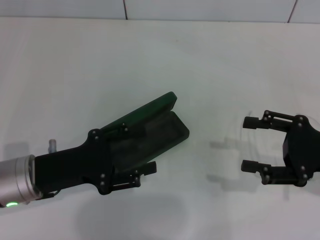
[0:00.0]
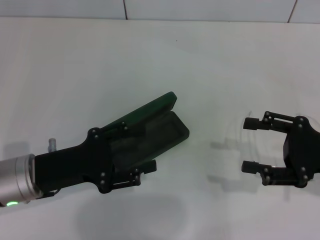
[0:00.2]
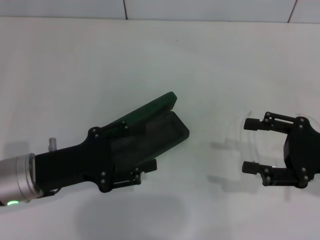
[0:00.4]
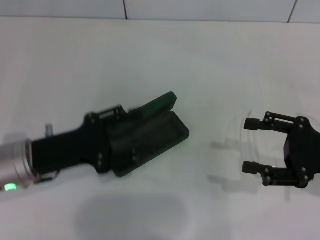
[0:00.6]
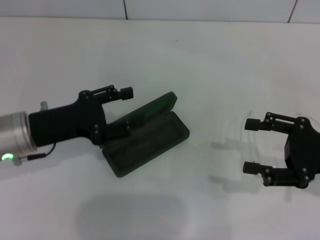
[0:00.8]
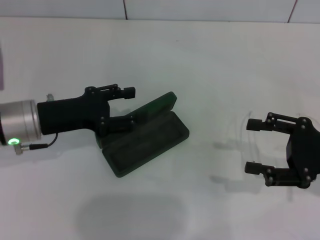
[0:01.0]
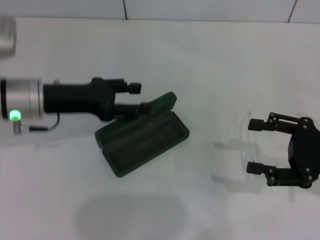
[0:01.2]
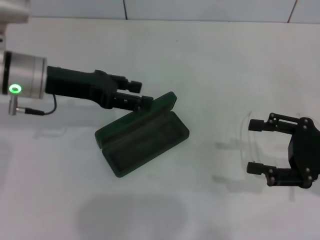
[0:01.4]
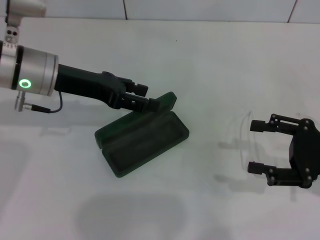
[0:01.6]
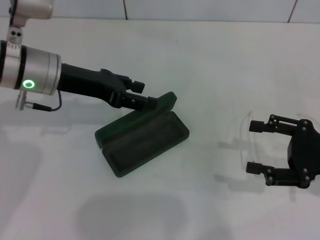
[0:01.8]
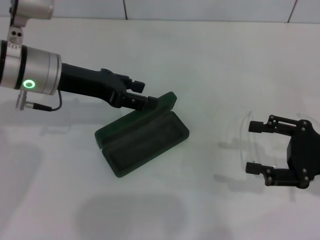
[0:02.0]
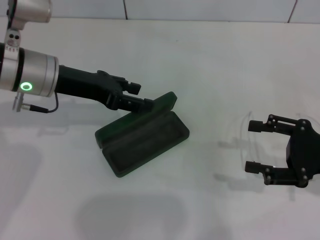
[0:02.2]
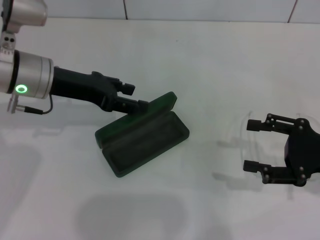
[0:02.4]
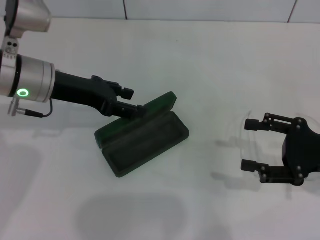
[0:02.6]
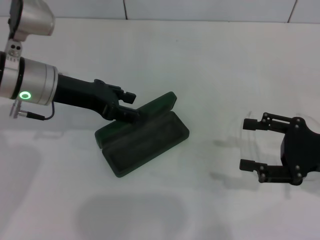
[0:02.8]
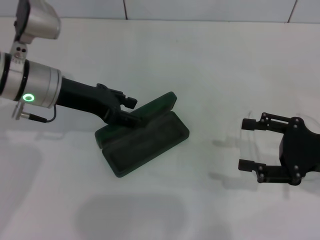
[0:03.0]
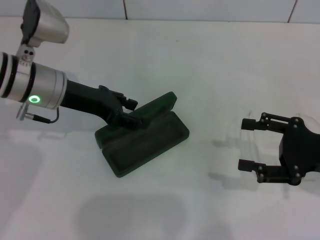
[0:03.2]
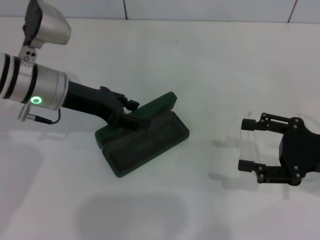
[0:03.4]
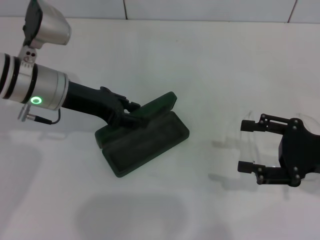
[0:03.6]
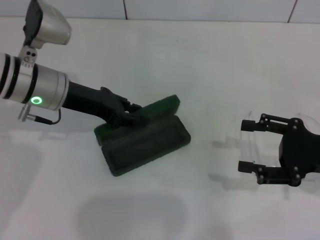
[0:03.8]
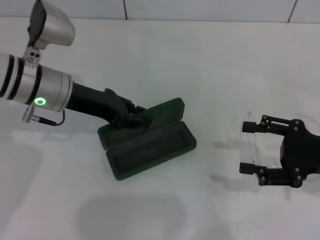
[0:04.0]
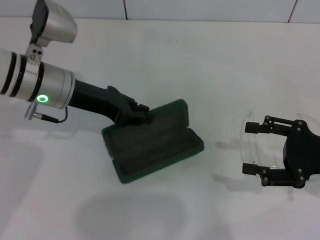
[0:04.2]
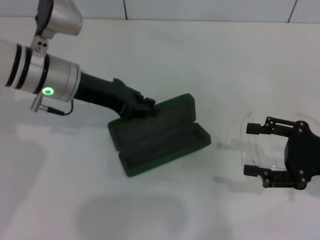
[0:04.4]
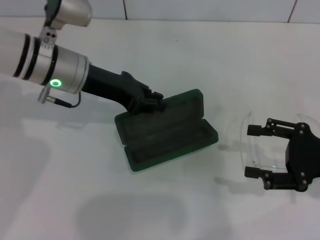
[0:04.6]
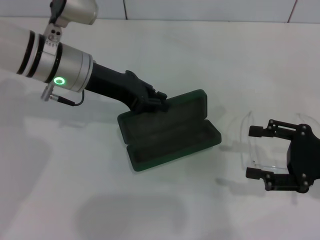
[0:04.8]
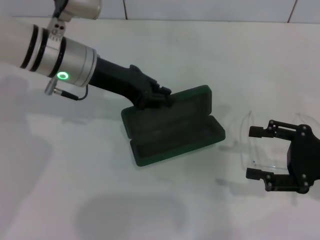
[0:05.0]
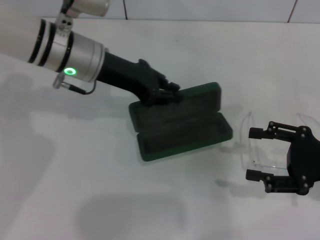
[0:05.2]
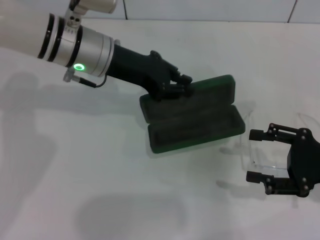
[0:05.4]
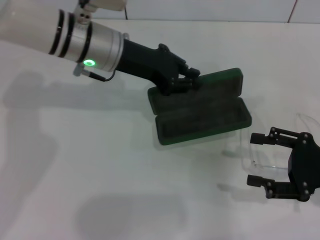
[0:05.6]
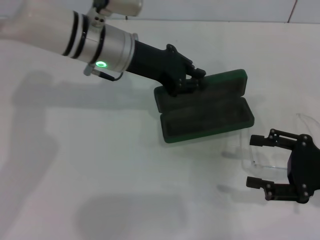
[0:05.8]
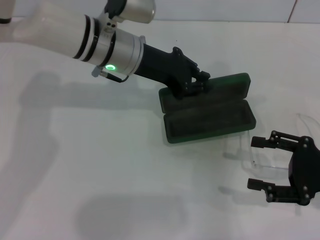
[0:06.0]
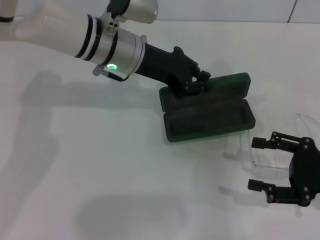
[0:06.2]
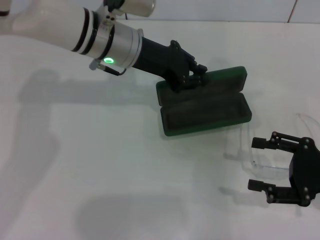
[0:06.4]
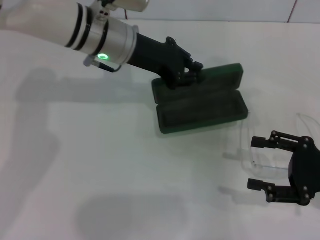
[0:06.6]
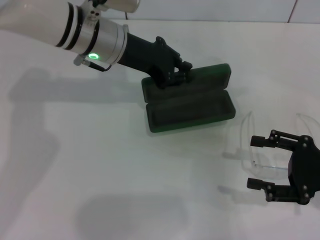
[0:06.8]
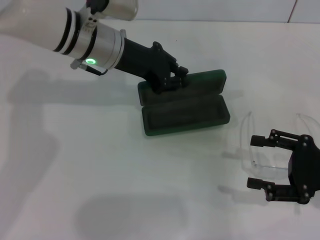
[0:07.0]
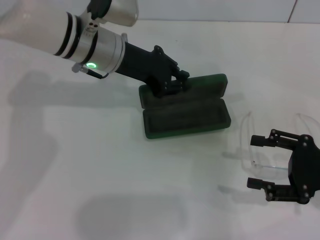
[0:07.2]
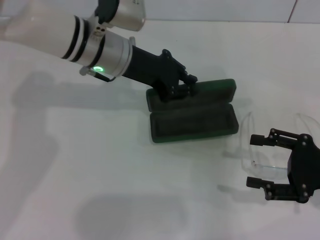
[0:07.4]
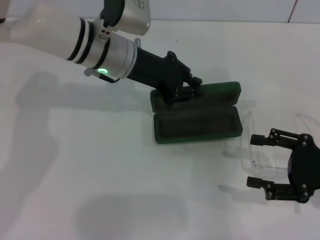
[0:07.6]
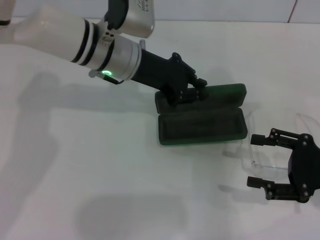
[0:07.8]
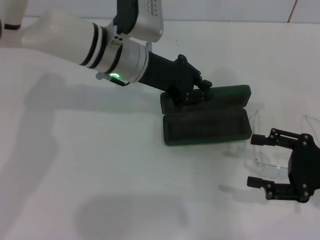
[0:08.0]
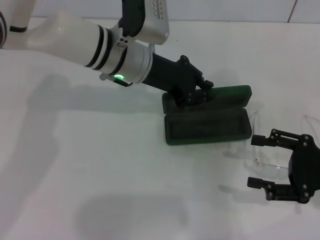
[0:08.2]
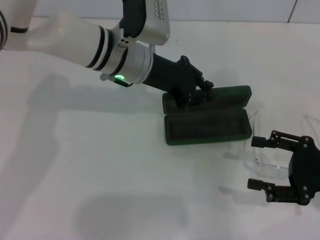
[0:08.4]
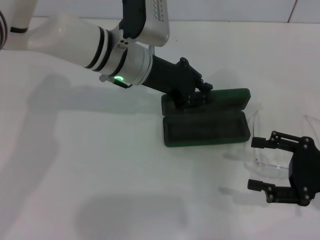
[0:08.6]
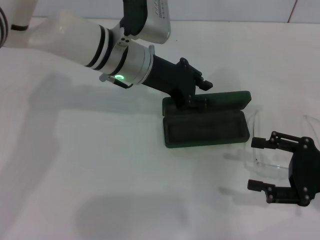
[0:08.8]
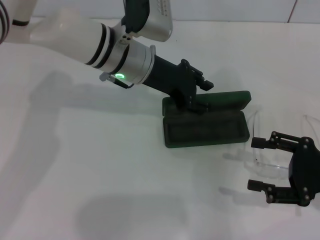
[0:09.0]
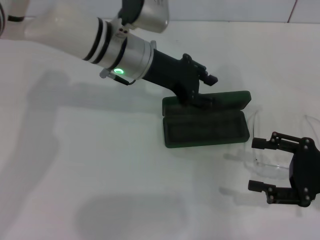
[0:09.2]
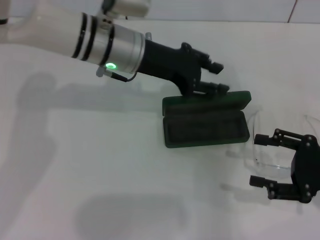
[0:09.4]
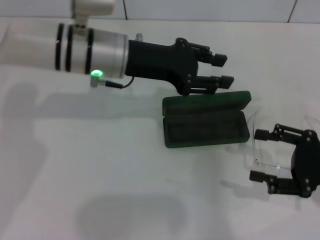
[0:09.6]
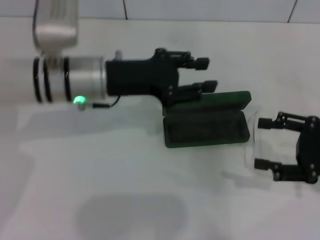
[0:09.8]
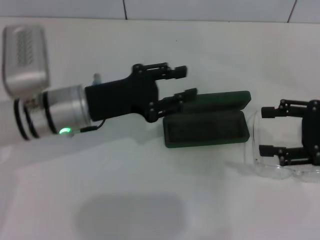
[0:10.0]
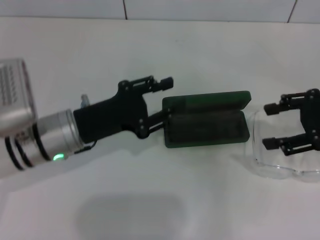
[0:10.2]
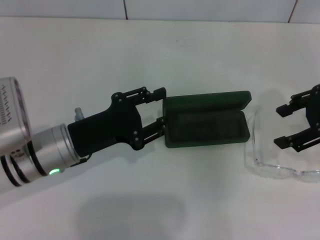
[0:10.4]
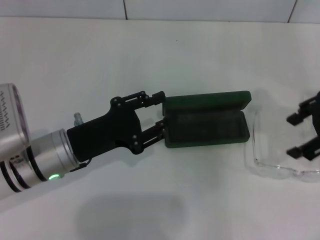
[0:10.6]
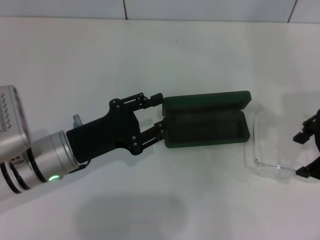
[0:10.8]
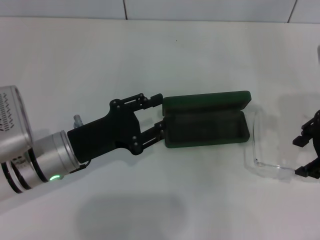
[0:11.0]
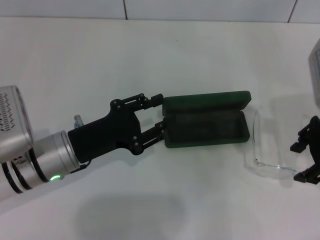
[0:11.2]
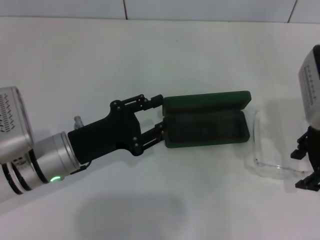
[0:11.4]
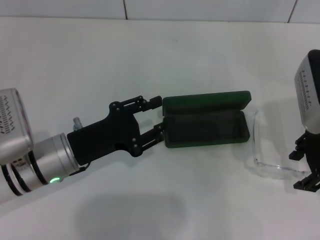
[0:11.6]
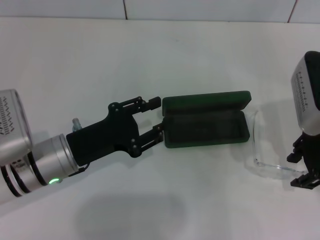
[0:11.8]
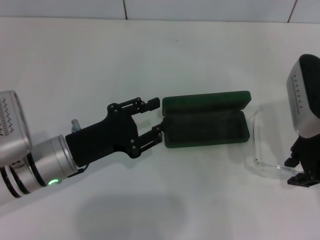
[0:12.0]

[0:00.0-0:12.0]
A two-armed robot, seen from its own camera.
Step, 0:00.0 to 0:03.8: Grab the glasses case with your left hand.
Step, 0:04.0 to 0:09.0: Place the glasses case in the center of the table with your left hand.
0:00.0 to 0:01.6: The left gripper is displaced forward and upward by some 15 cm.
0:01.6 to 0:03.0: There are only small adjustments of the grippers.
0:03.0 to 0:04.4: The left gripper closes.
0:04.4 to 0:06.0: The left gripper shifts roughly 10 cm to the right.
0:06.0 to 0:09.0: The grippers make only small movements.
0:09.0 to 0:10.4: The left gripper shifts about 20 cm backward, to the left and downward. Meanwhile the right gripper heads upward and forward, covering roughly 15 cm.
0:10.4 to 0:12.0: The right gripper goes roughly 5 cm to the left.

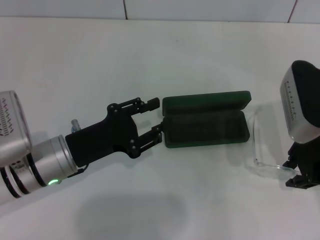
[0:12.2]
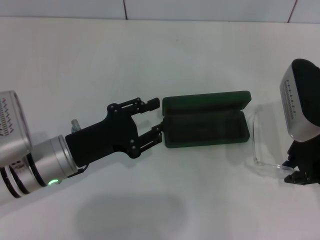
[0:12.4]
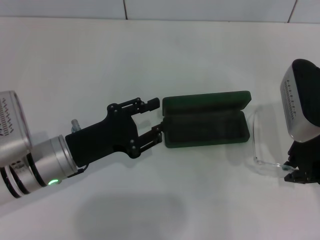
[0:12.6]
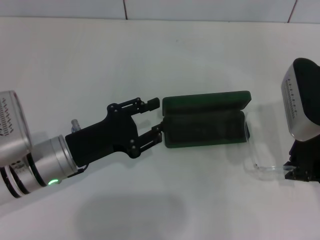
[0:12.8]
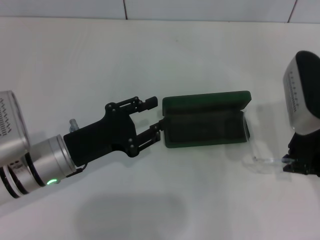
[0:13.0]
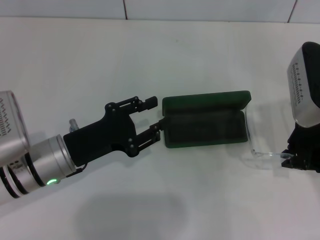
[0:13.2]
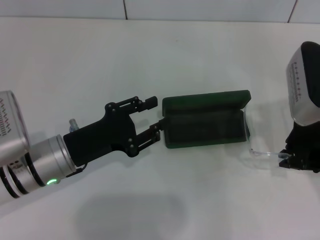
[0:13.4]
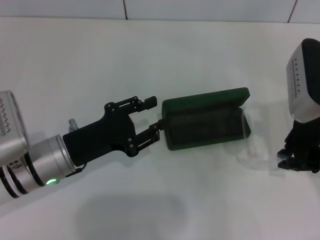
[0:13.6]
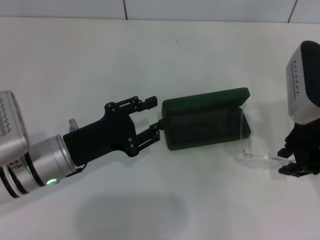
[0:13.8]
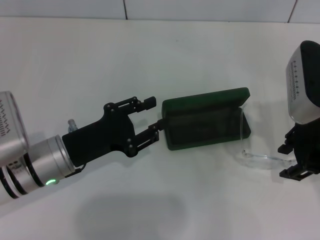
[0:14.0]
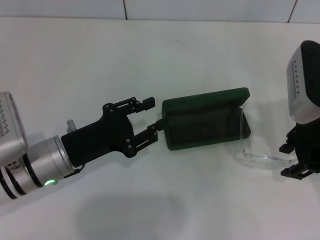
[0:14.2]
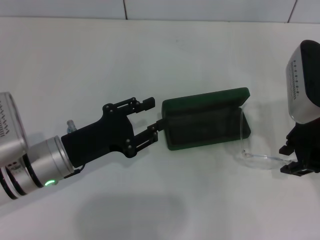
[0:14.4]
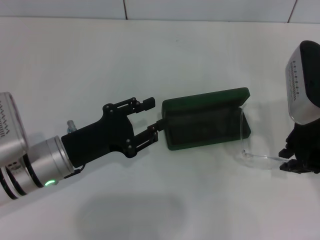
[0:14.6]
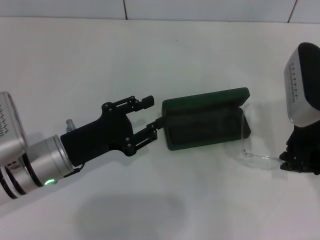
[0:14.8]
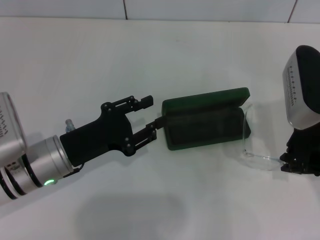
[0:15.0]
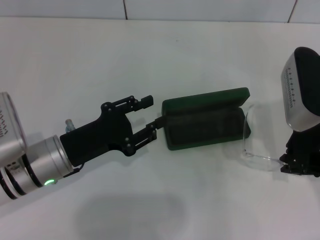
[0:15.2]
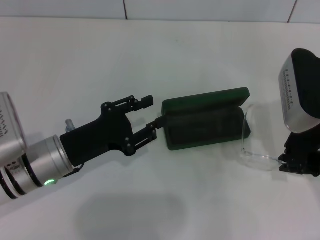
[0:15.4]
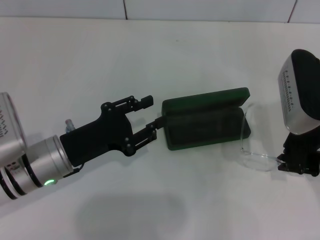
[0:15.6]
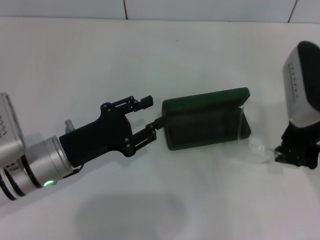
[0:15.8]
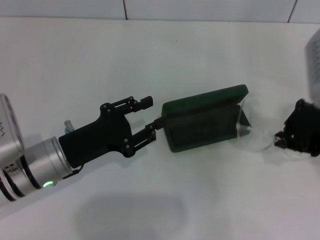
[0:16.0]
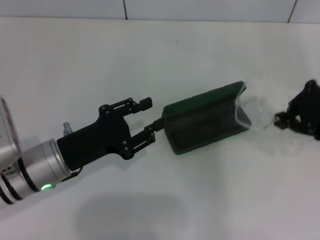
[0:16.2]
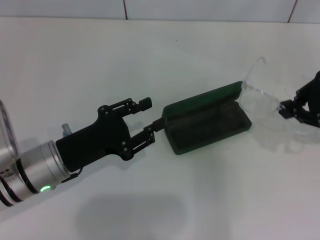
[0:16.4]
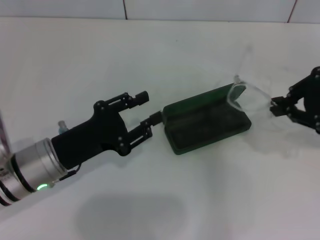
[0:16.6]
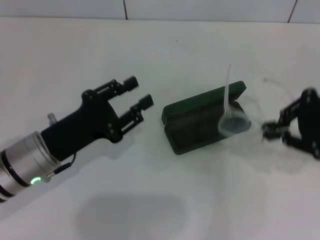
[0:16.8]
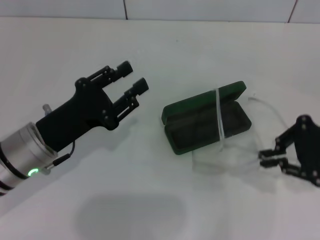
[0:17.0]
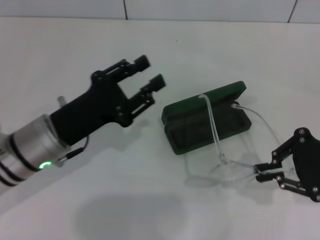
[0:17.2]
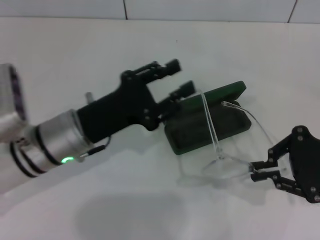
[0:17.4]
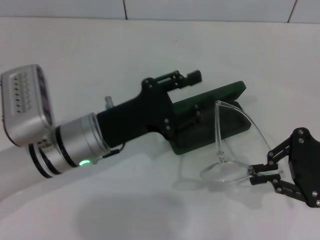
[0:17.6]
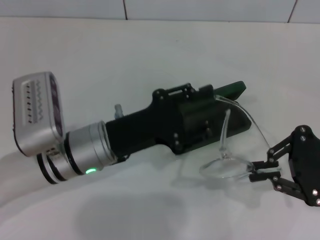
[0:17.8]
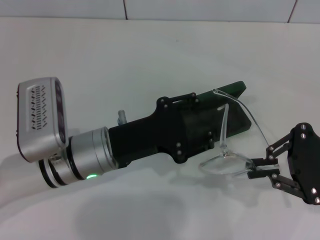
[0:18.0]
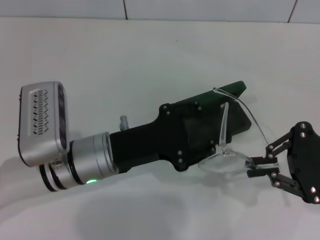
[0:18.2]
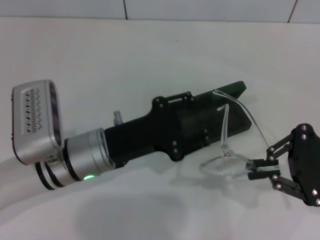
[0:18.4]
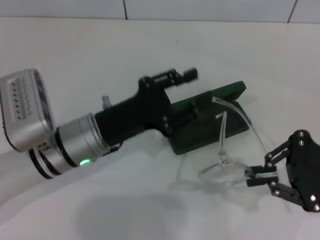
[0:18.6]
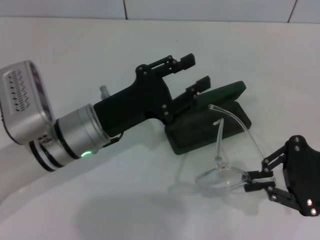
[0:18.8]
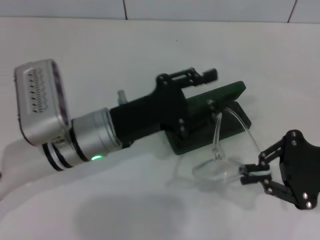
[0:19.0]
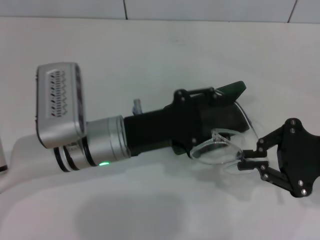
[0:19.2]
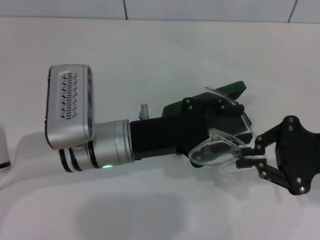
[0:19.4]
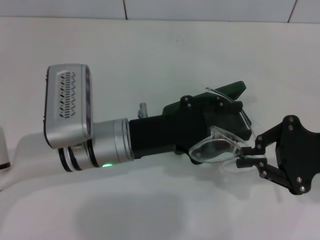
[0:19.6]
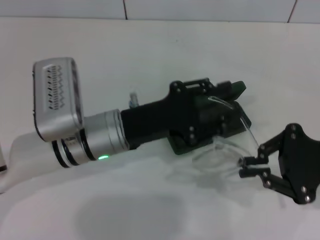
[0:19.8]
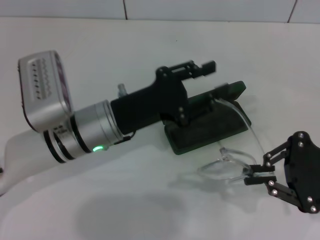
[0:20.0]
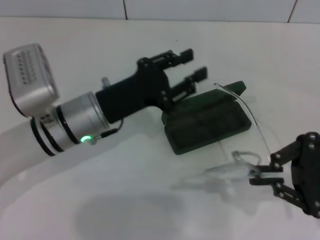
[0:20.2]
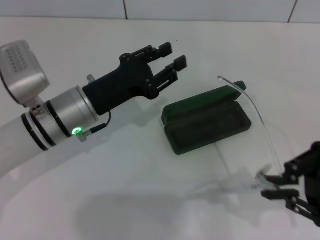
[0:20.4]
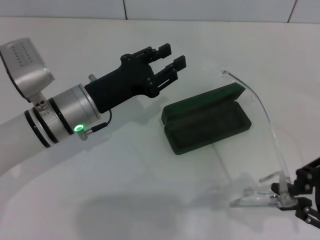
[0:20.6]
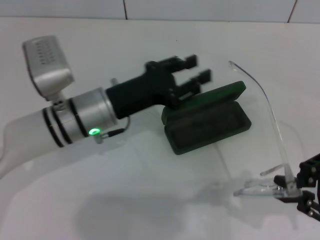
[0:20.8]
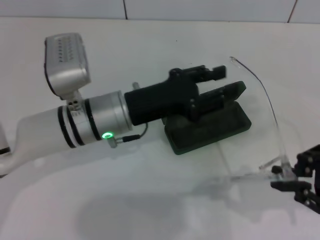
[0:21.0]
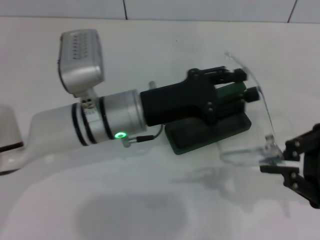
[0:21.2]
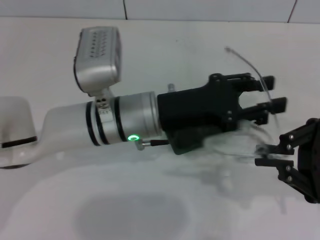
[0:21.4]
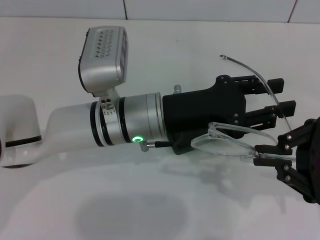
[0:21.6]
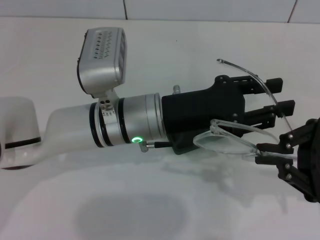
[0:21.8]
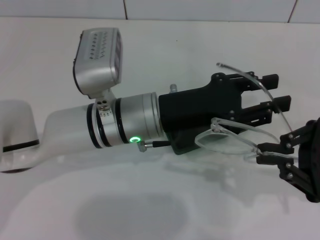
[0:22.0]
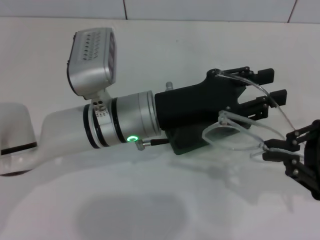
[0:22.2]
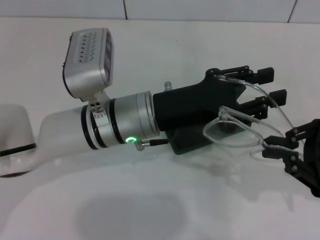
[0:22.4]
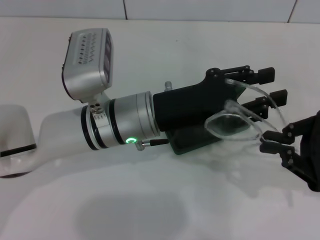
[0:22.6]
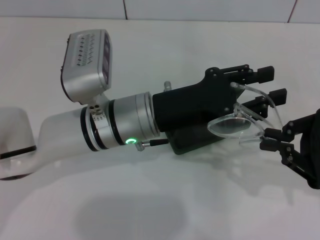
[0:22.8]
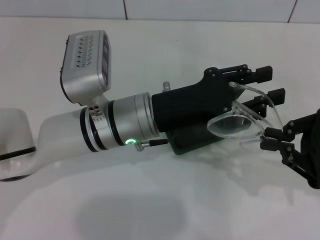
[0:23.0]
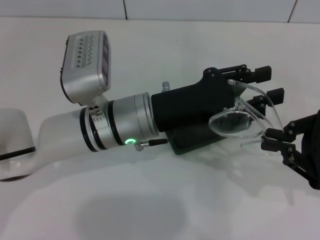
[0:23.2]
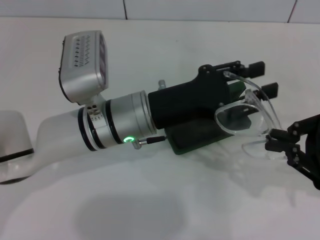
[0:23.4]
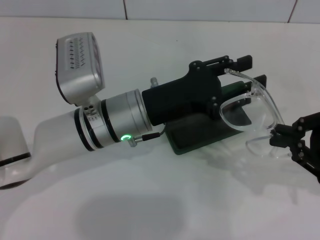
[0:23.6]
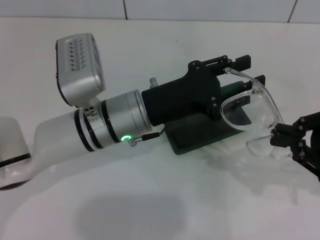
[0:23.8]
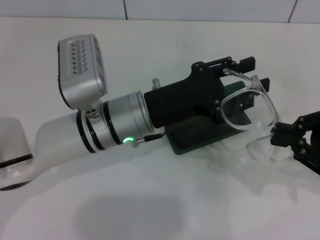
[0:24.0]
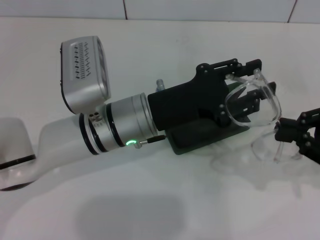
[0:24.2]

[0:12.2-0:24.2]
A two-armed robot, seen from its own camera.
Step, 0:12.2 to 0:15.4: Grab the eyeglass frame with your right hand.
0:12.2 to 0:13.8: The grippers make only small movements.
0:13.8 to 0:15.2: The right gripper opens and closes again.
0:15.2 to 0:16.6: The right gripper heads to the right, covering roughly 5 cm.
0:16.6 to 0:18.2: The right gripper travels downward by some 5 cm. The left gripper is displaced to the right by approximately 5 cm.
0:18.2 to 0:19.8: The grippers stay close to where they were, moving slightly.
0:21.2 to 0:22.6: There are only small adjustments of the grippers.
0:22.6 to 0:24.2: The grippers make only small movements.
